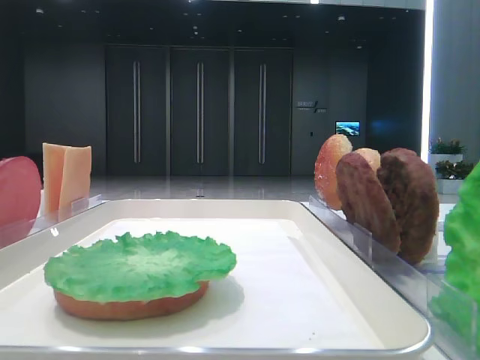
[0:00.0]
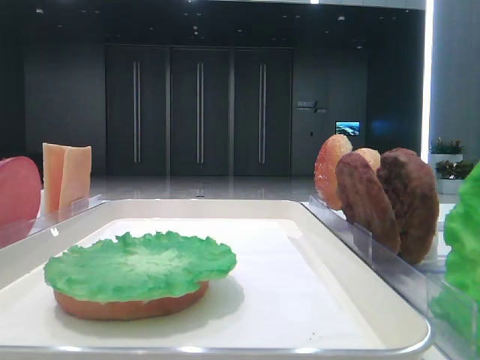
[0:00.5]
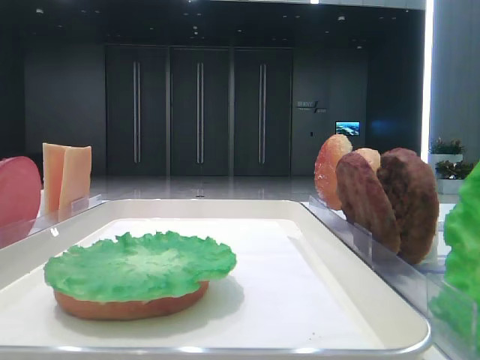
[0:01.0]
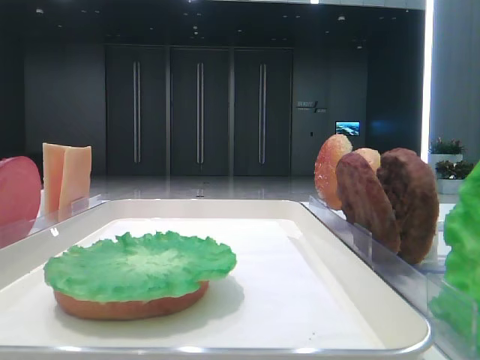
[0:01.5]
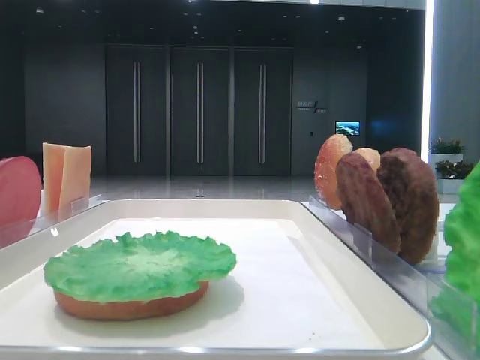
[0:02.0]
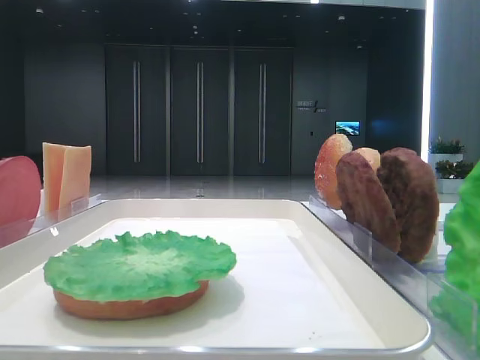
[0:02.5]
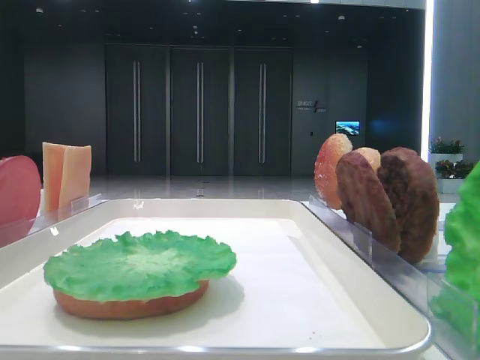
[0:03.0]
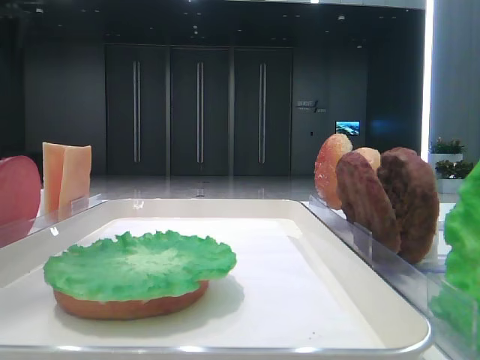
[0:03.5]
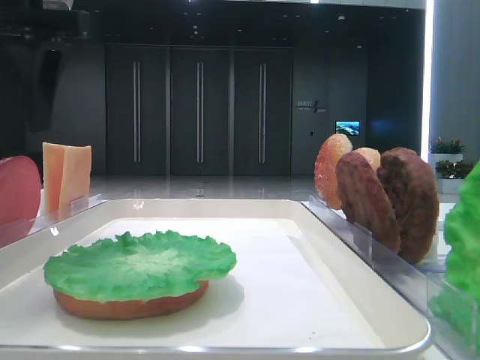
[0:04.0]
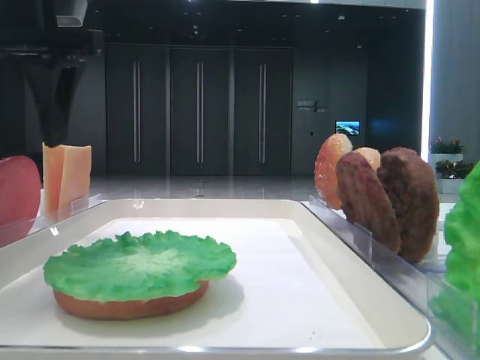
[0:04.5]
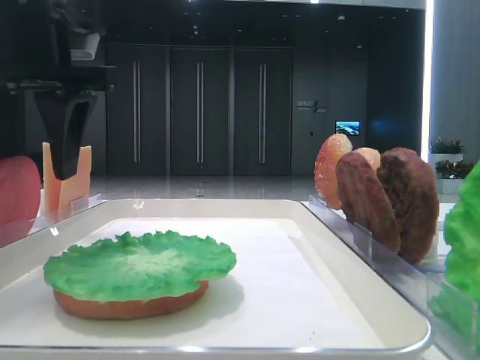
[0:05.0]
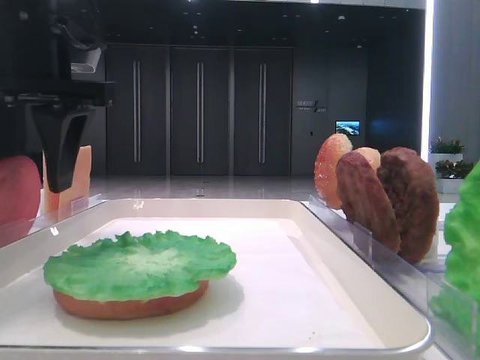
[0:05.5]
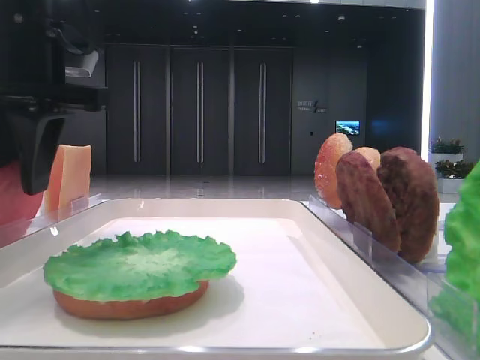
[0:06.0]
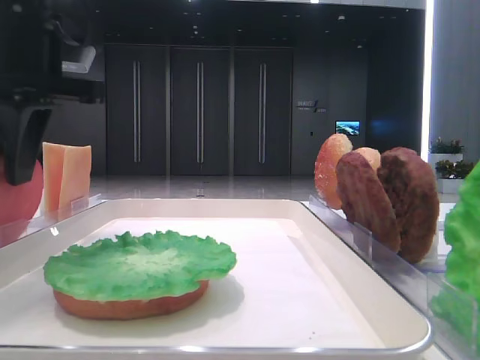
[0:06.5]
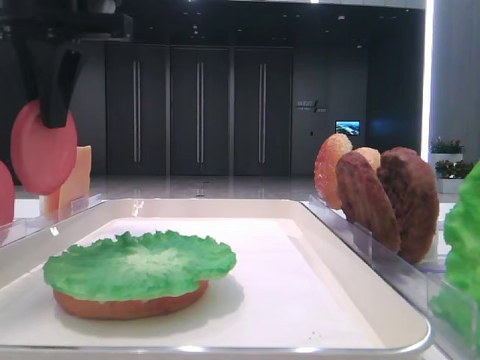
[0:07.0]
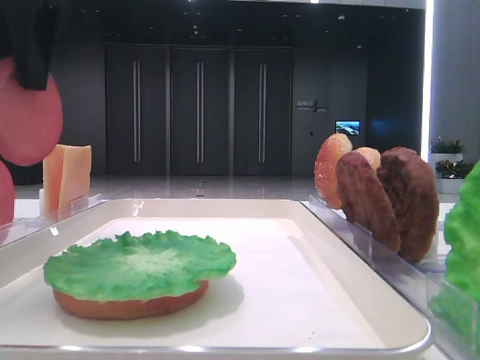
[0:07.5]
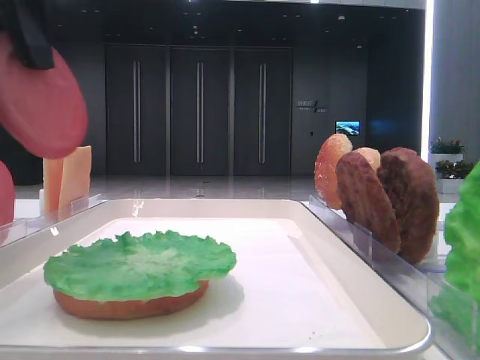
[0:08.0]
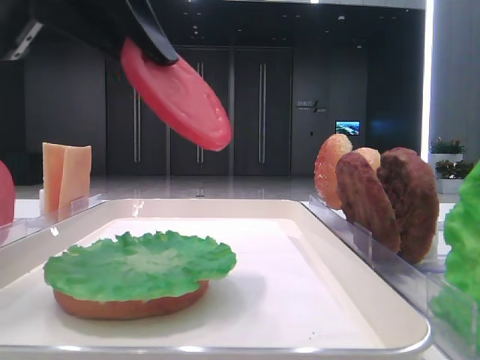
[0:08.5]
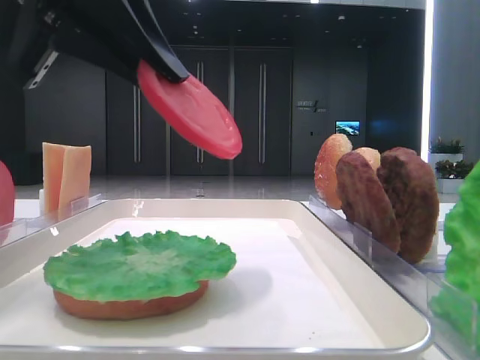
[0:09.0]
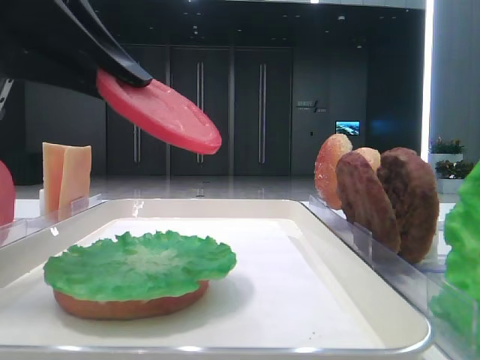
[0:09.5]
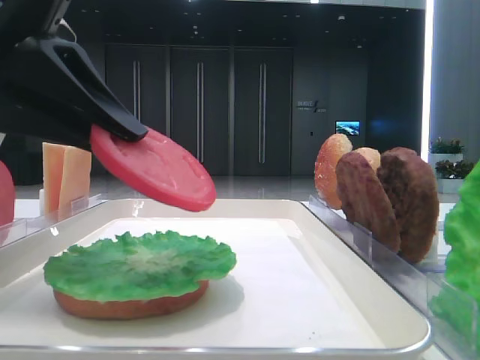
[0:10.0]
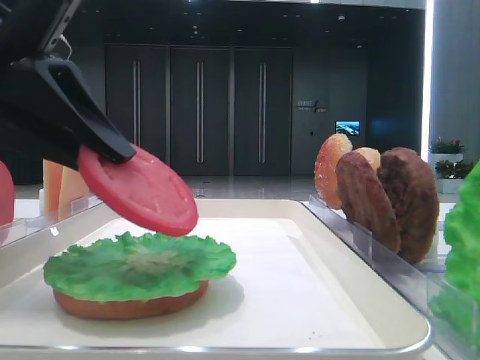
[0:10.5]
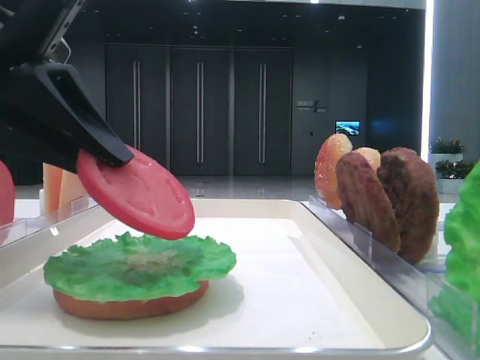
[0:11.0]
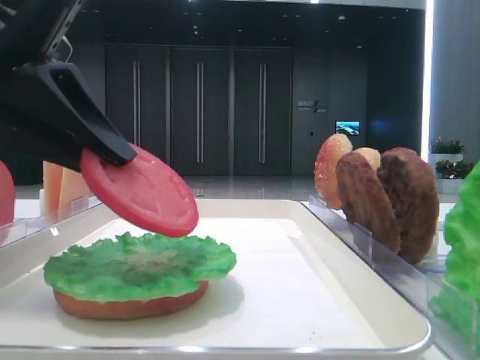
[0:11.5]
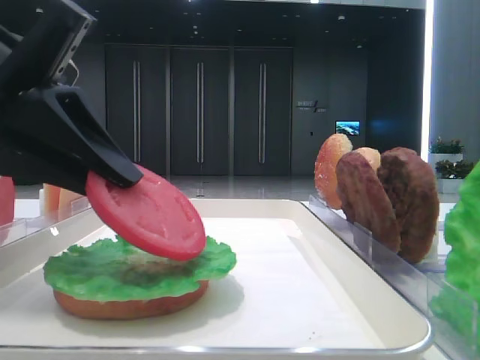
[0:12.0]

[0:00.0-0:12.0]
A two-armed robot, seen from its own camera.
Step, 0:00.0 to 0:06.0: Pick up the tomato slice with the left hand.
0:02.0 to 0:04.0: The left gripper moves forward and to the right, some 30 cm.
0:04.0 to 0:06.0: The left gripper moves some 5 cm, and closes its fingers.
0:06.0 to 0:08.0: The left gripper is displaced upward and backward by about 10 cm, and closes up.
0:08.0 to 0:10.0: The left gripper shifts roughly 10 cm downward.
0:10.0 to 0:12.0: The grippers move only a little.

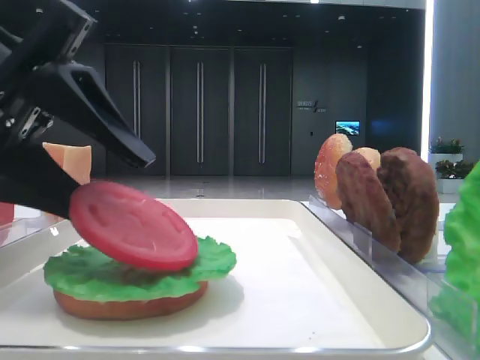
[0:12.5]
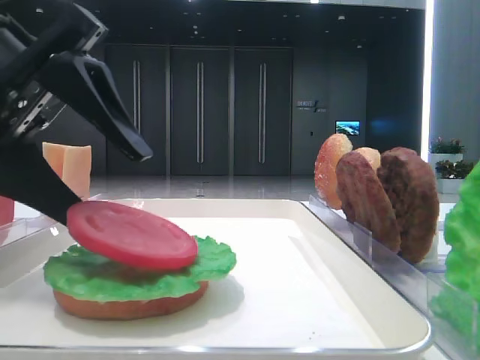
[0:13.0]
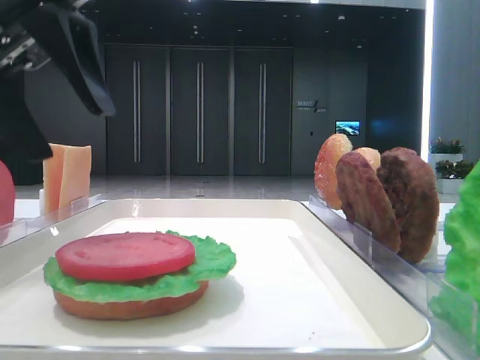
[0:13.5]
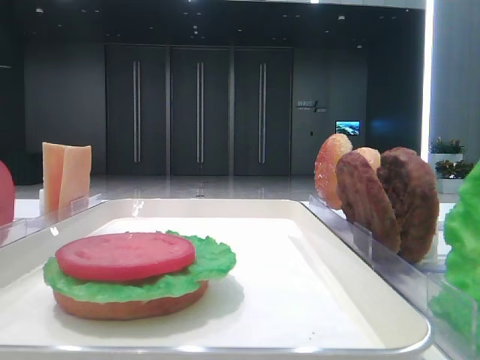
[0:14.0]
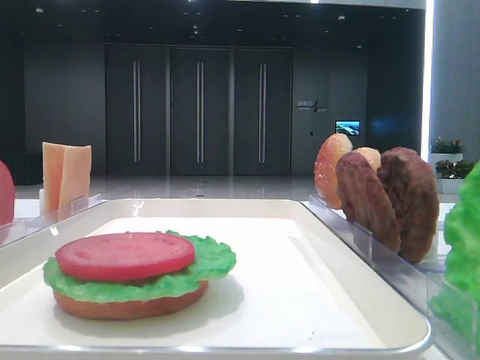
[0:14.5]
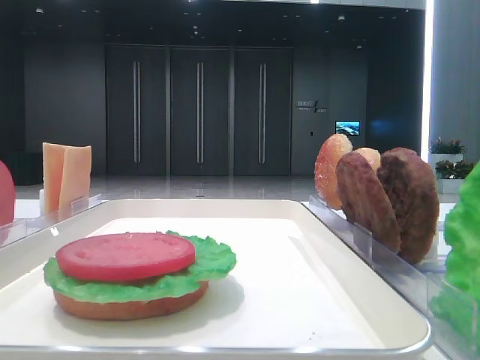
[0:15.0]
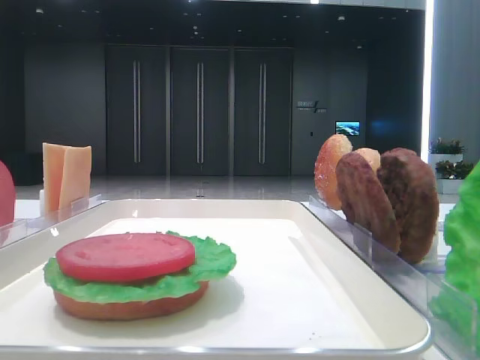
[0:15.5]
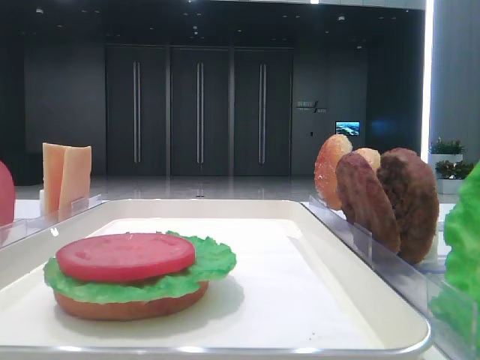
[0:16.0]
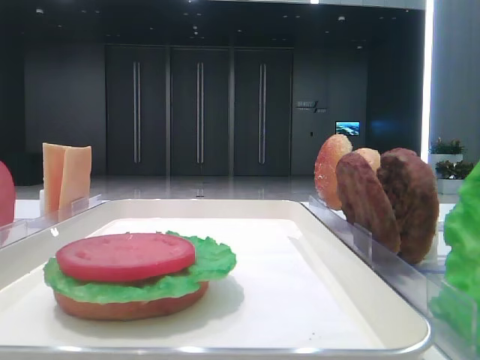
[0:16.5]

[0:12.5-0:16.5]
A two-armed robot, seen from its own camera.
0:12.5 to 0:14.5: The left gripper heads upward, to the left and forward, covering about 25 cm.

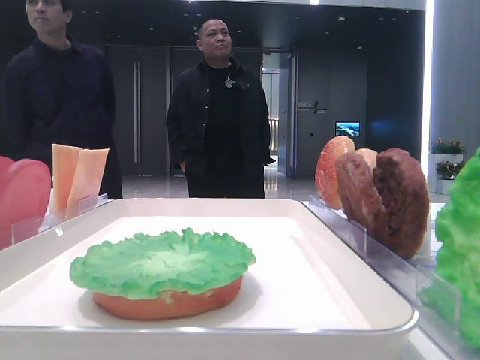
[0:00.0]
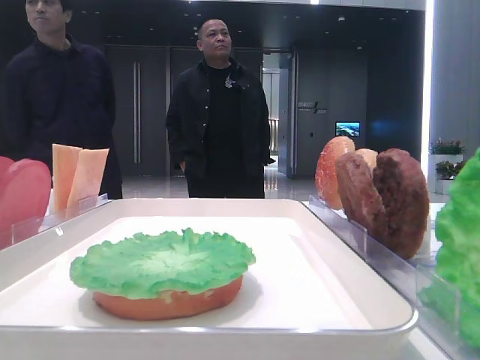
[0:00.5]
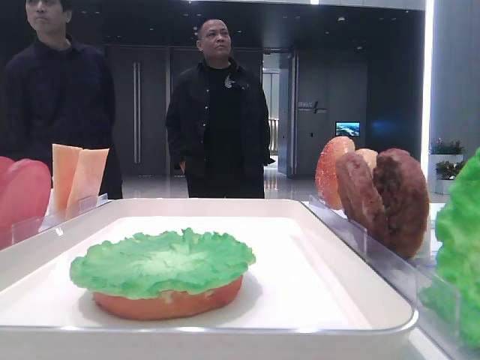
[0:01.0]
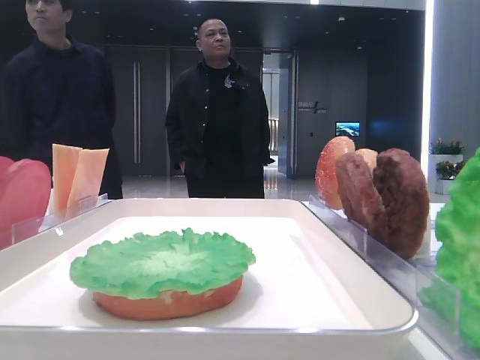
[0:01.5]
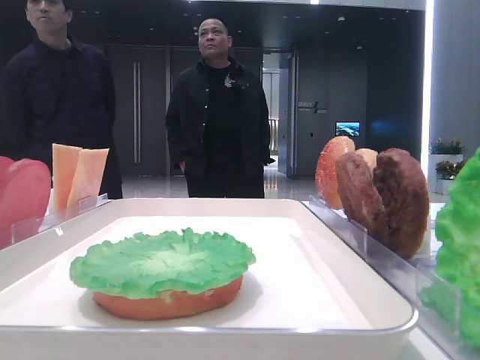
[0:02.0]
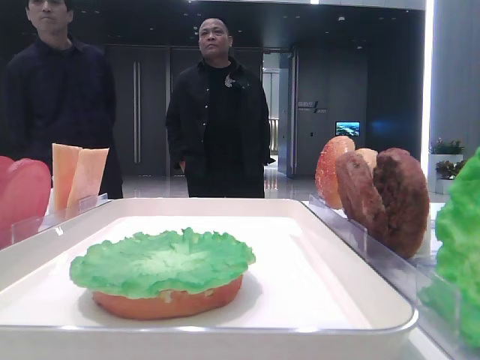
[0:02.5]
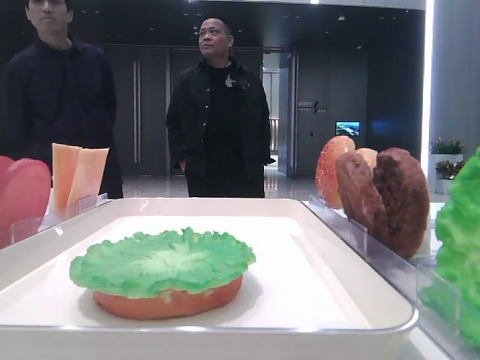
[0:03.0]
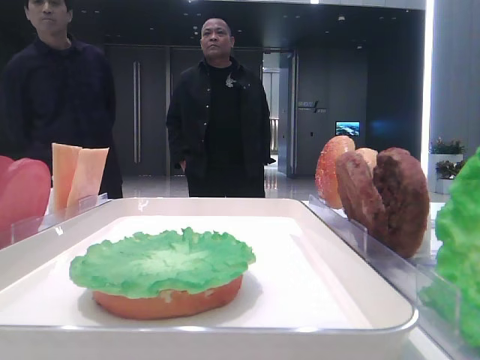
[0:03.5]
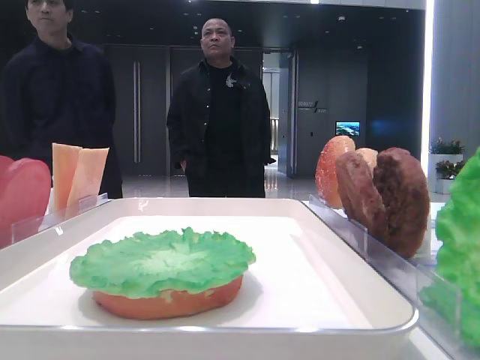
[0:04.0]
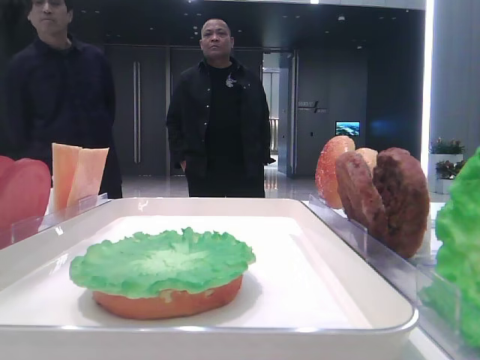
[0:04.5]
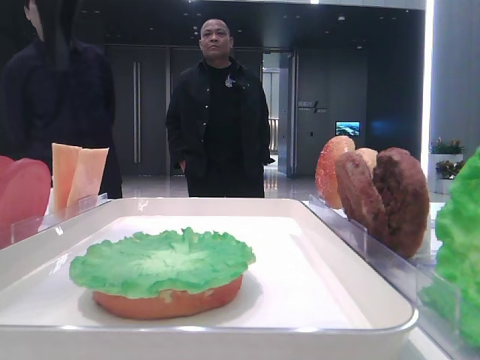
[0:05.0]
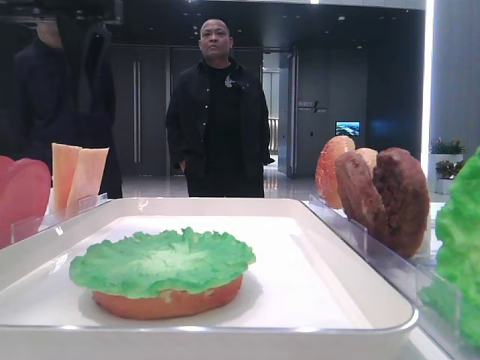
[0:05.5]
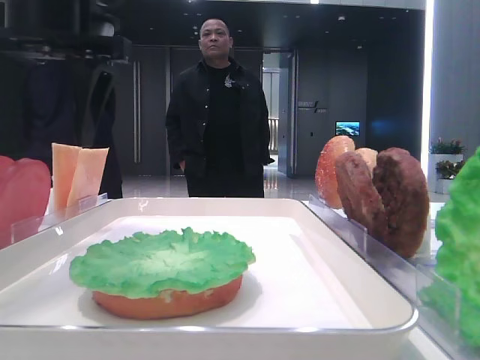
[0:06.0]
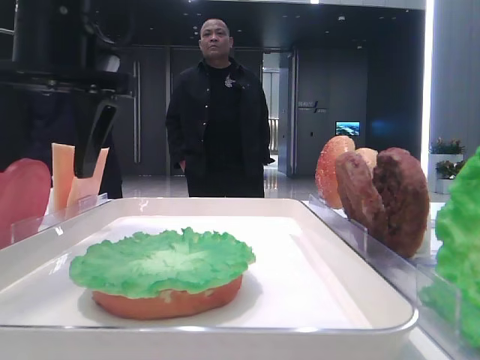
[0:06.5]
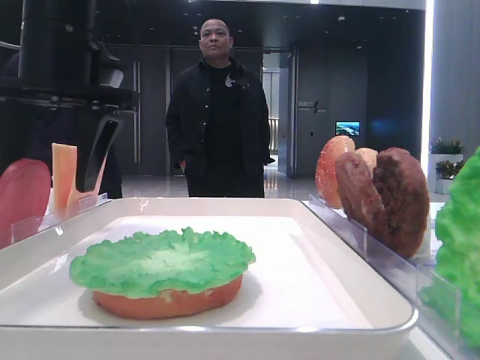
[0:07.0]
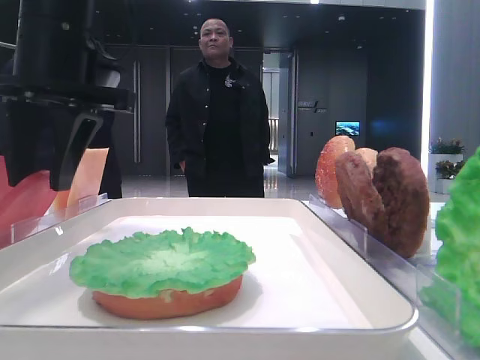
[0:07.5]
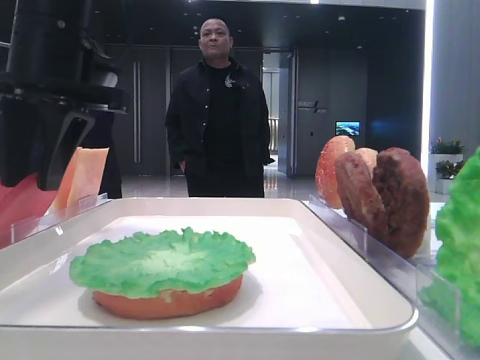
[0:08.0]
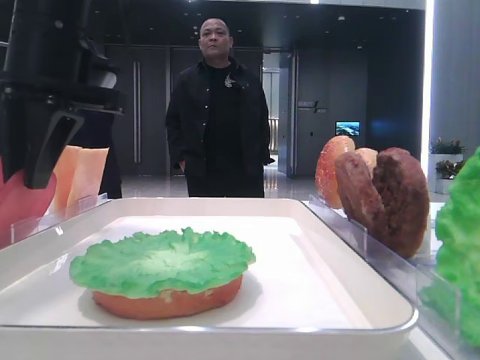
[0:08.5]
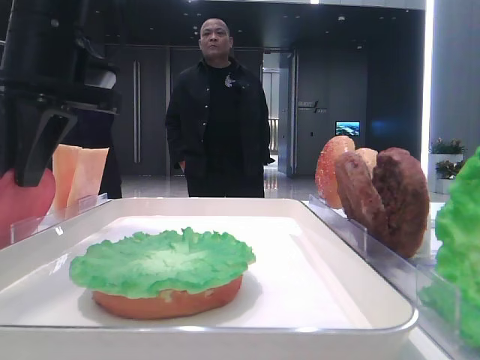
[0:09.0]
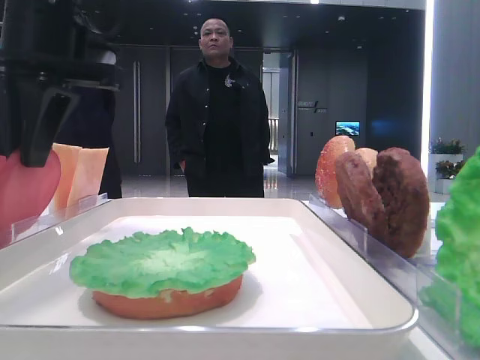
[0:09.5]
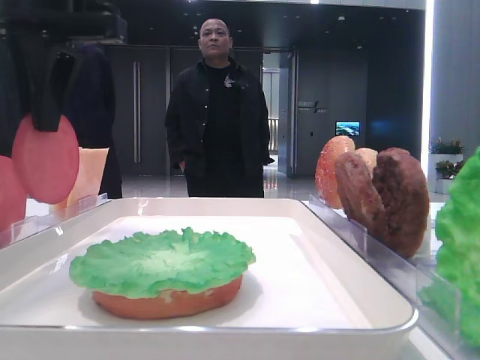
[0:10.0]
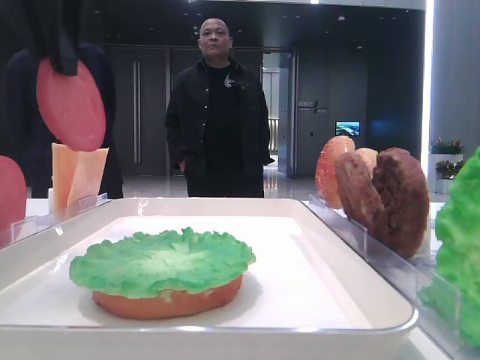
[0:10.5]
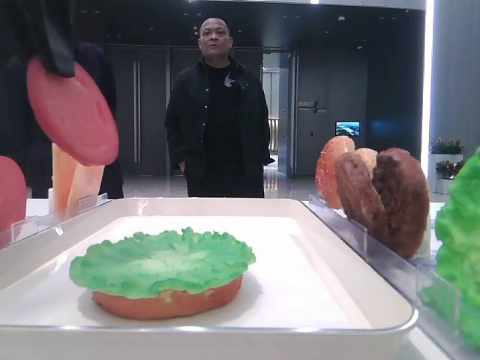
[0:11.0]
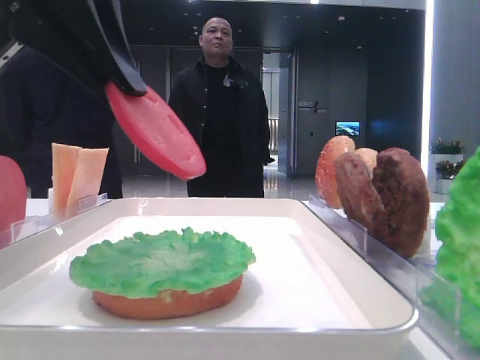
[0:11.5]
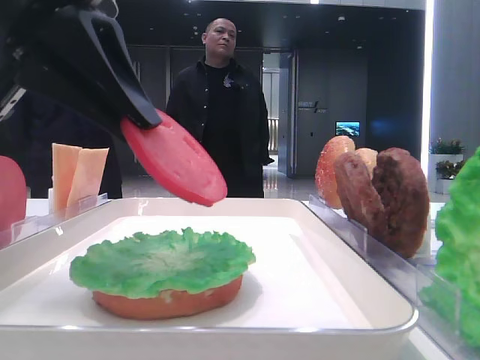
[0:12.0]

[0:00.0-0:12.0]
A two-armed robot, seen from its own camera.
Step, 0:00.0 to 0:08.0: Pick up the tomato slice with the left hand.
0:02.0 to 0:04.0: The left gripper is displaced forward by approximately 25 cm.
0:04.0 to 0:06.0: The left gripper travels to the right by approximately 15 cm.
0:06.0 to 0:08.0: The left gripper closes up.
0:08.0 to 0:10.0: The grippers move only a little.
0:10.0 to 0:12.0: The left gripper is displaced backward by approximately 10 cm.
